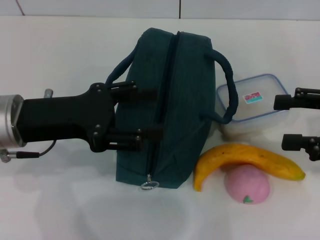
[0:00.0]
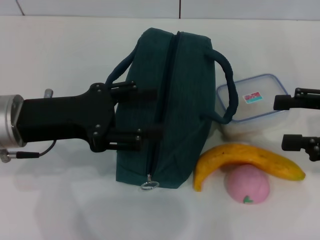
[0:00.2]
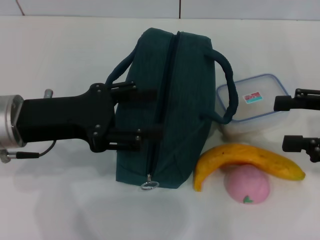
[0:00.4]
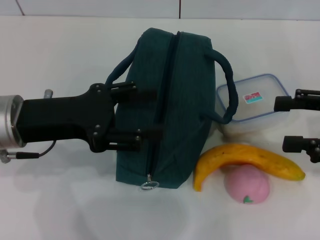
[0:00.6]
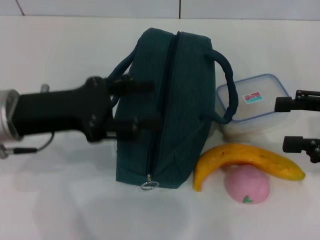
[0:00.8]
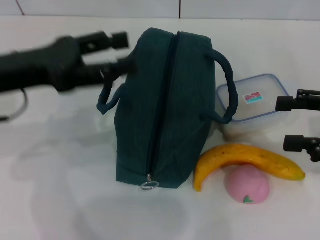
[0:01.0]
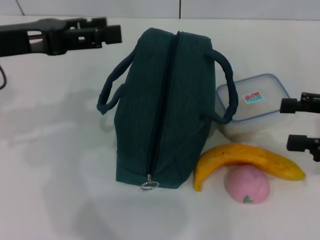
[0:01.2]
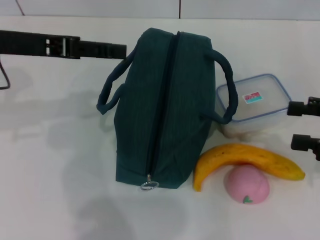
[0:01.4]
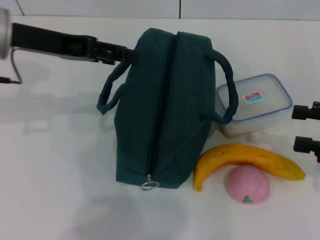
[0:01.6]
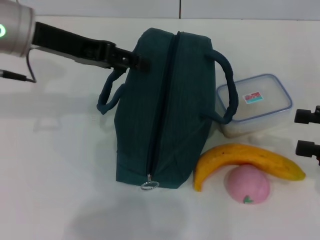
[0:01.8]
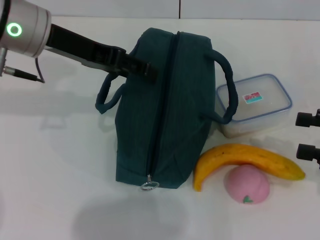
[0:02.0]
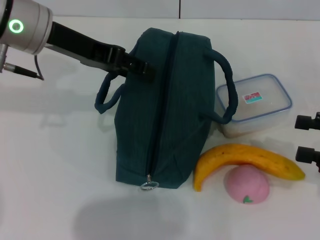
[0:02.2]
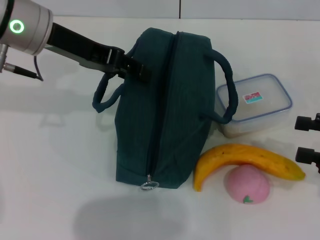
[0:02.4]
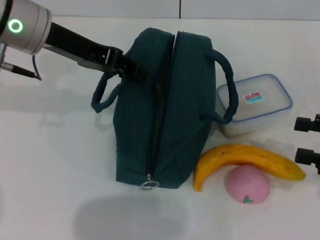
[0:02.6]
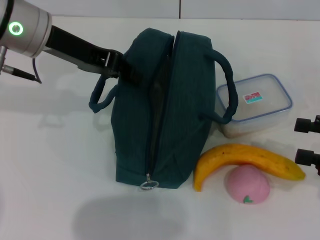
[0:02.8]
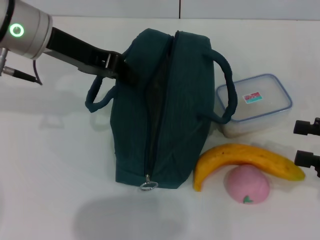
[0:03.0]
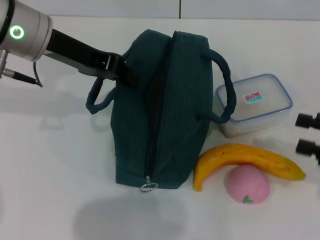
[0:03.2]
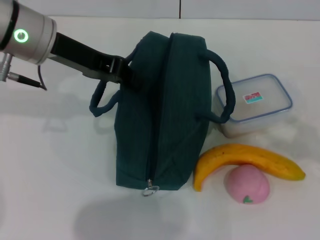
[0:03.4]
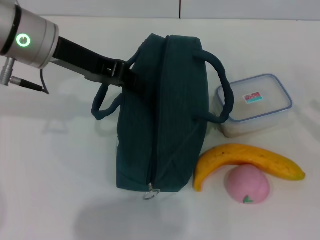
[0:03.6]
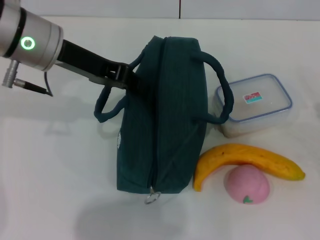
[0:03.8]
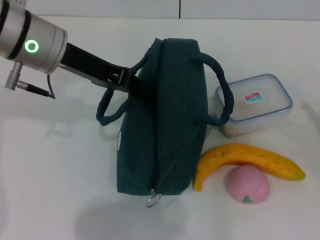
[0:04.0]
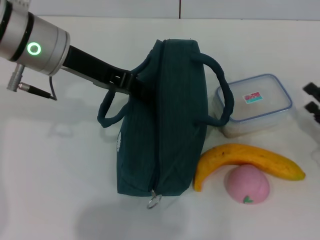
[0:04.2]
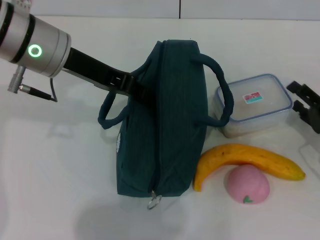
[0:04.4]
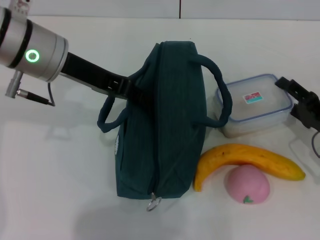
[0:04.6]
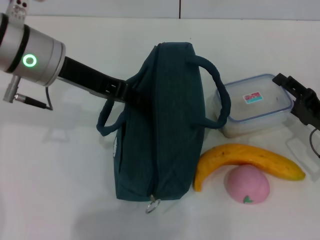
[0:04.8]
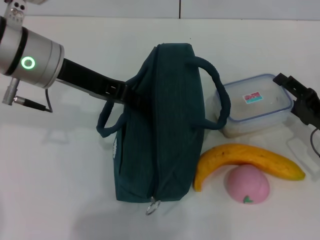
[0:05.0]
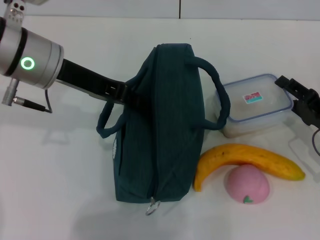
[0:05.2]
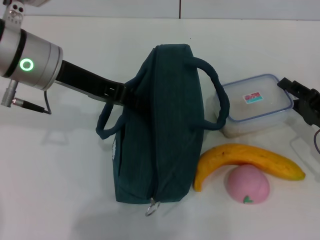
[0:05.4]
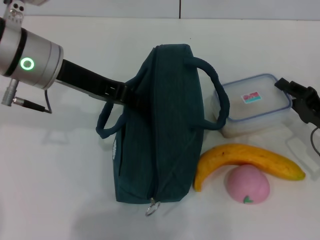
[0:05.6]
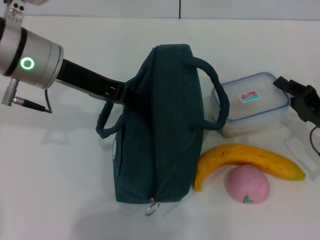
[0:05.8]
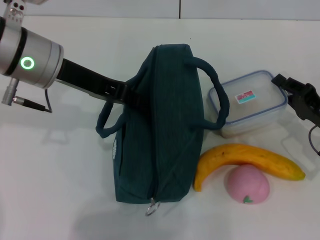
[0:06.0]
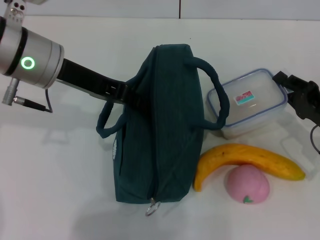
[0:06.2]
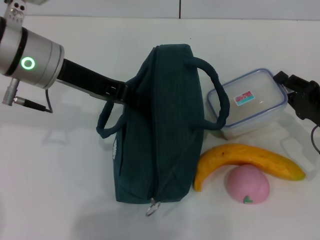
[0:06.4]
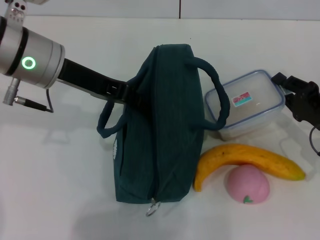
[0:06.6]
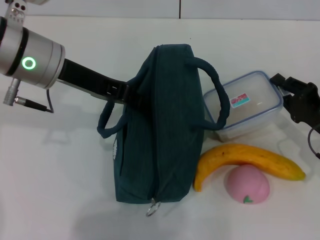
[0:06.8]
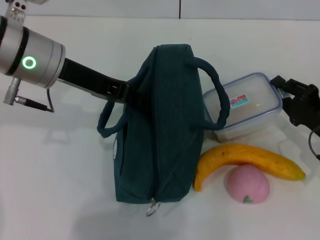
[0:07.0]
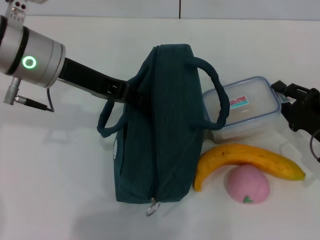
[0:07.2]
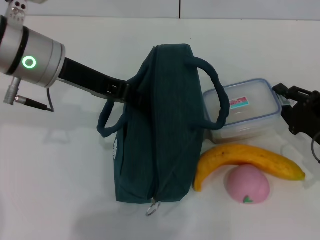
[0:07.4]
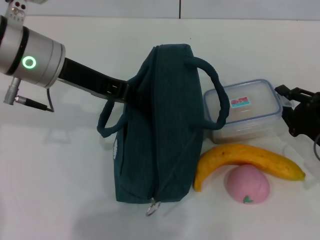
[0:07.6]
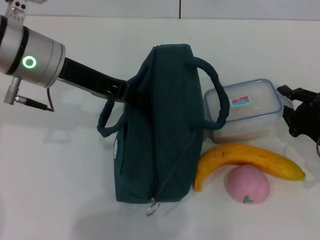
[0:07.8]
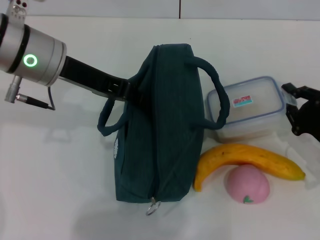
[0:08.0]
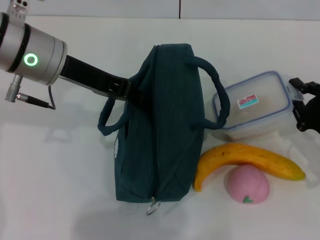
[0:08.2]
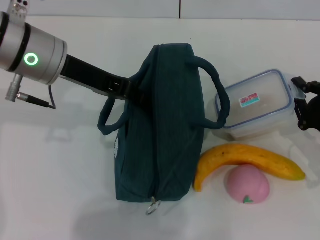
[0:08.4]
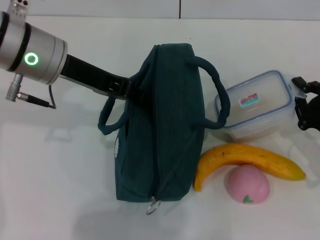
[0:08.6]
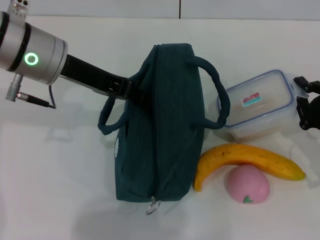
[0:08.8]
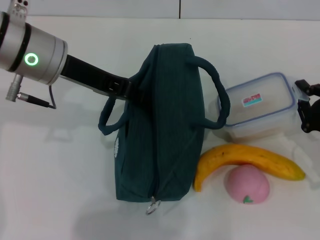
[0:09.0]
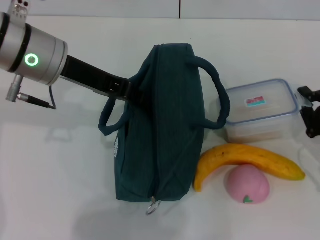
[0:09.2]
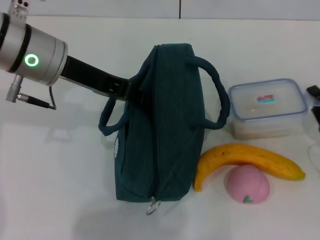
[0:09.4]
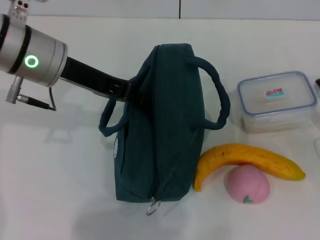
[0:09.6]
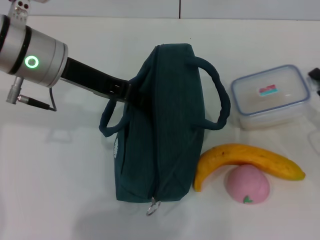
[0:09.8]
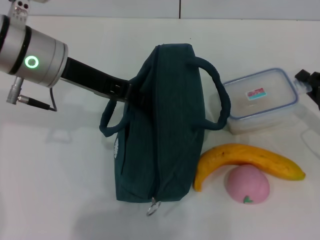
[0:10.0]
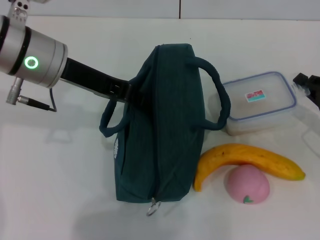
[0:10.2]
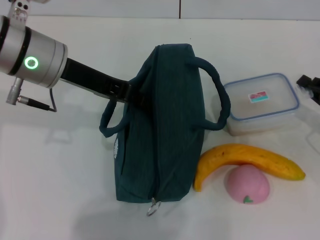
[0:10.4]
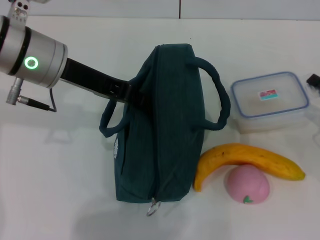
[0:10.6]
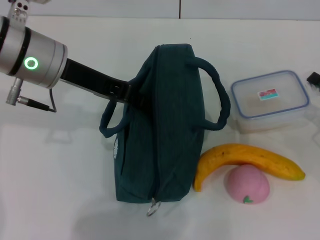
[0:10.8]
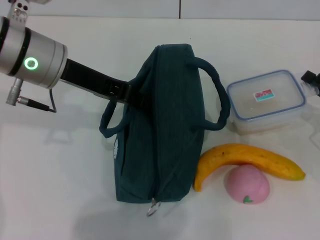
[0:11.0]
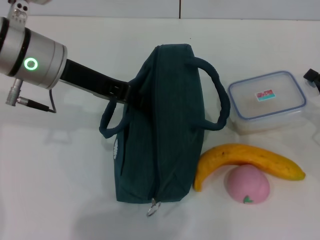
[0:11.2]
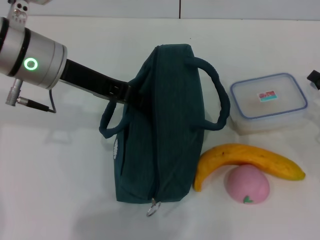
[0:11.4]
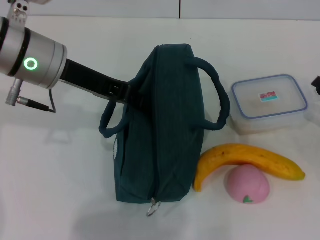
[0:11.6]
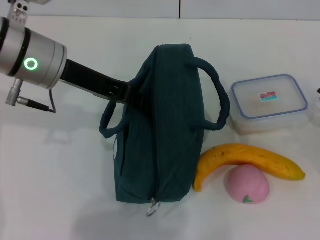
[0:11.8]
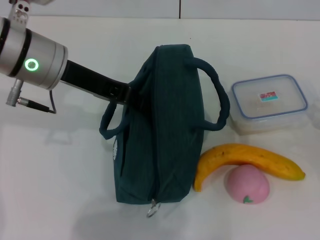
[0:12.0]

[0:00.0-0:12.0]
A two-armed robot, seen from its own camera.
Step, 0:00.0 to 0:03.4: Hold the lunch bag with your left hand.
0:00.0 to 0:01.6: The left gripper heads forward and upward, covering about 10 cm.
0:01.6 to 0:03.0: The left gripper closes its fingers.
0:03.0 to 0:04.4: The right gripper is displaced downward by roughly 10 cm.
0:04.4 to 0:06.0: The right gripper closes its fingers.
0:07.6 to 0:09.0: The grippers stay close to where they were, moving slightly.
0:09.0 to 0:10.4: The right gripper moves approximately 5 cm.
0:10.4 to 0:12.0: The grippers make only small movements.

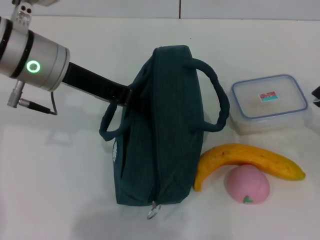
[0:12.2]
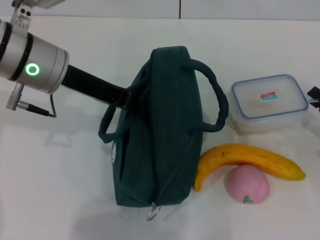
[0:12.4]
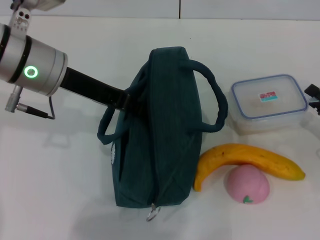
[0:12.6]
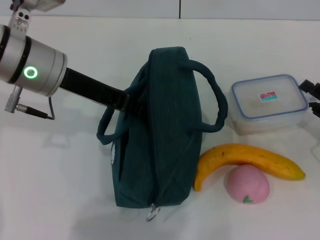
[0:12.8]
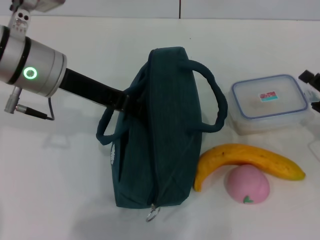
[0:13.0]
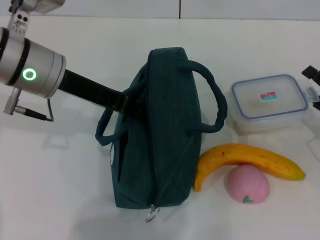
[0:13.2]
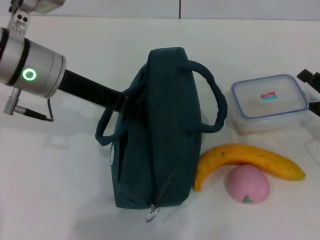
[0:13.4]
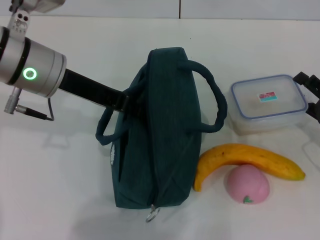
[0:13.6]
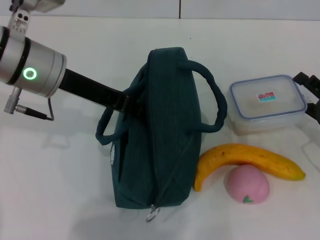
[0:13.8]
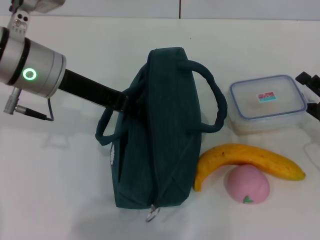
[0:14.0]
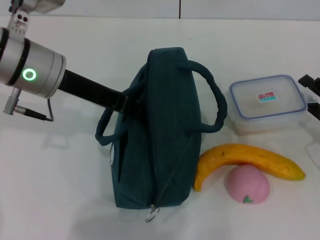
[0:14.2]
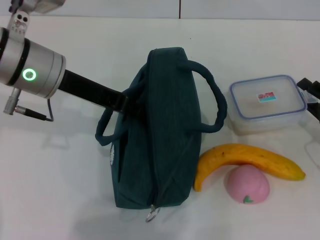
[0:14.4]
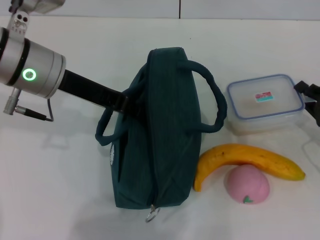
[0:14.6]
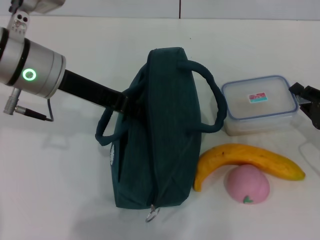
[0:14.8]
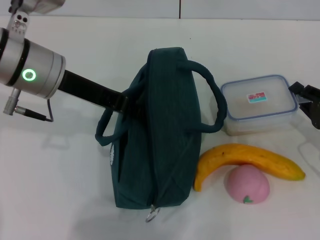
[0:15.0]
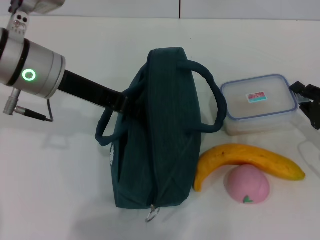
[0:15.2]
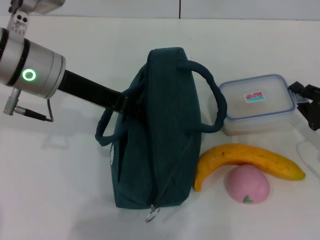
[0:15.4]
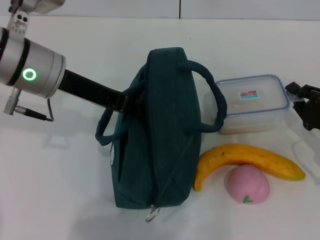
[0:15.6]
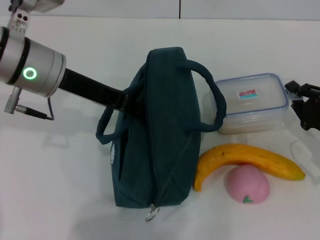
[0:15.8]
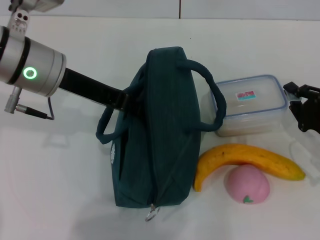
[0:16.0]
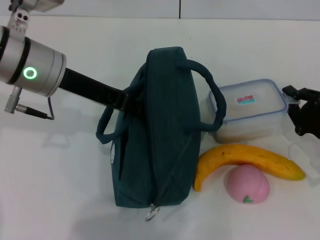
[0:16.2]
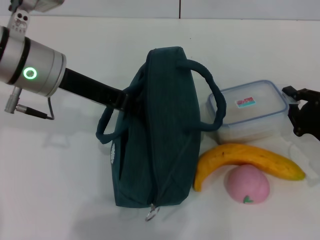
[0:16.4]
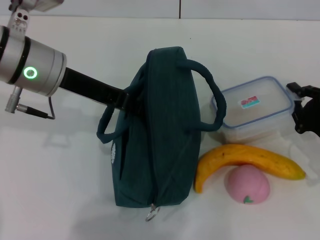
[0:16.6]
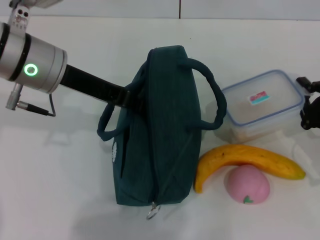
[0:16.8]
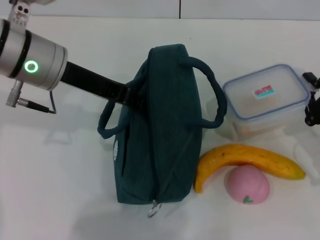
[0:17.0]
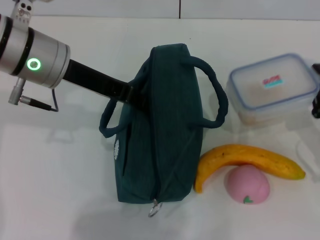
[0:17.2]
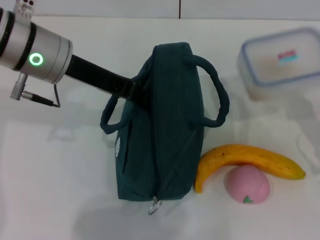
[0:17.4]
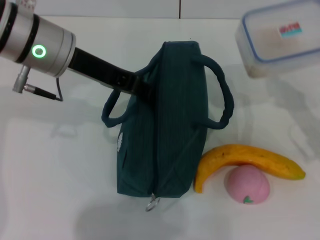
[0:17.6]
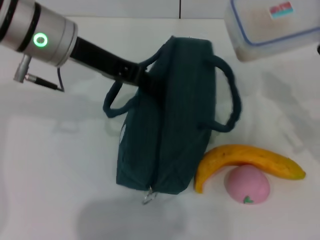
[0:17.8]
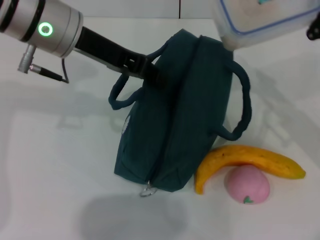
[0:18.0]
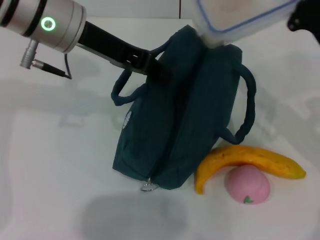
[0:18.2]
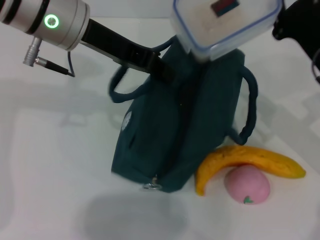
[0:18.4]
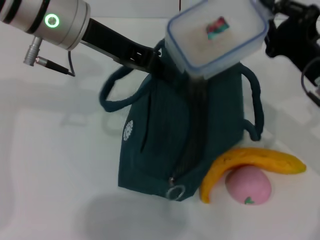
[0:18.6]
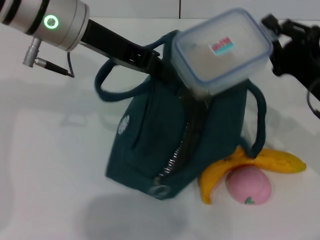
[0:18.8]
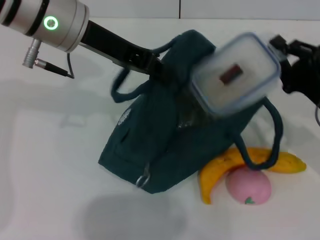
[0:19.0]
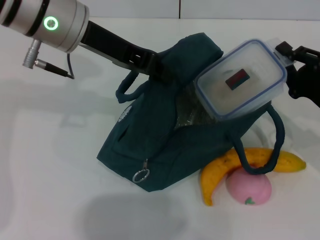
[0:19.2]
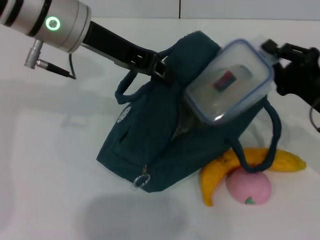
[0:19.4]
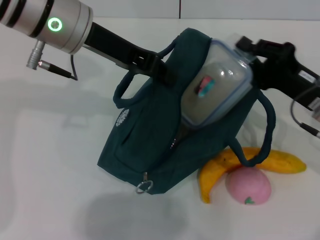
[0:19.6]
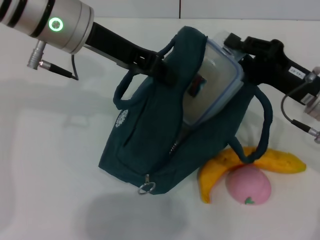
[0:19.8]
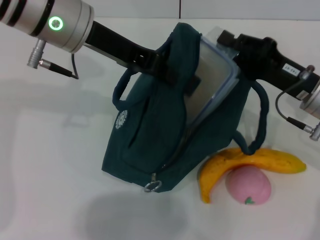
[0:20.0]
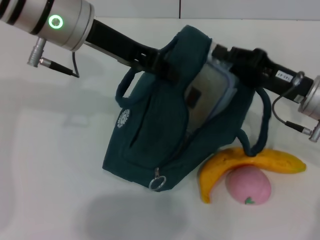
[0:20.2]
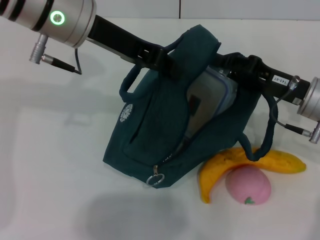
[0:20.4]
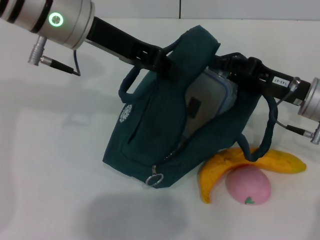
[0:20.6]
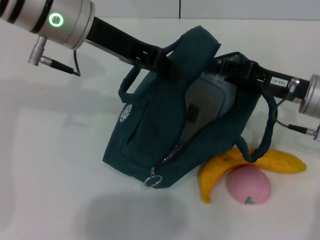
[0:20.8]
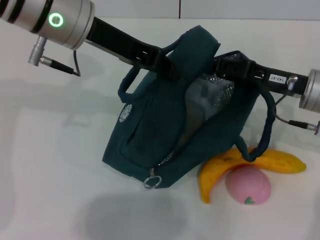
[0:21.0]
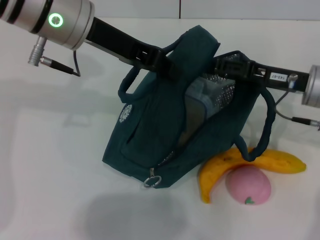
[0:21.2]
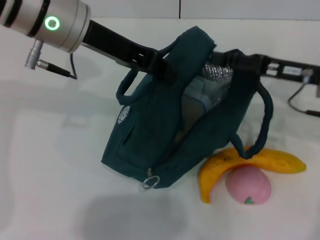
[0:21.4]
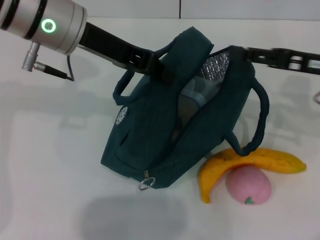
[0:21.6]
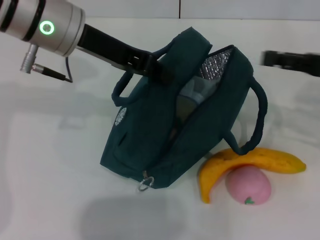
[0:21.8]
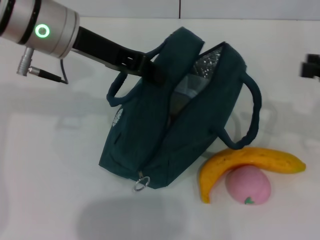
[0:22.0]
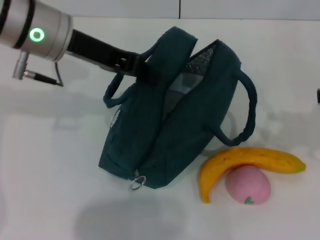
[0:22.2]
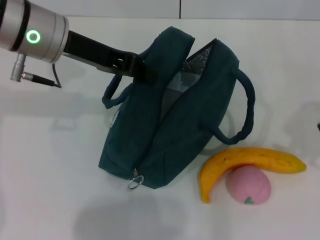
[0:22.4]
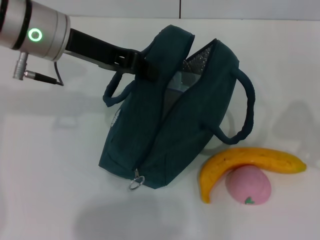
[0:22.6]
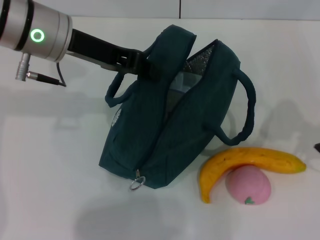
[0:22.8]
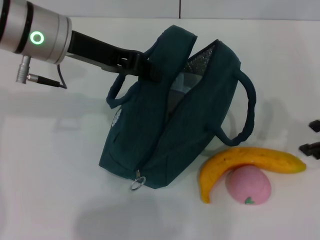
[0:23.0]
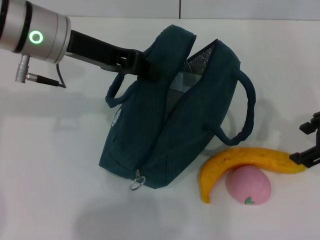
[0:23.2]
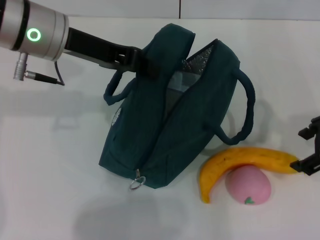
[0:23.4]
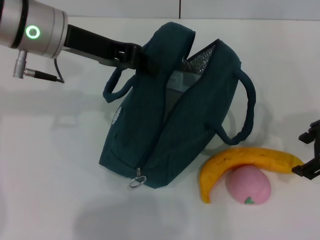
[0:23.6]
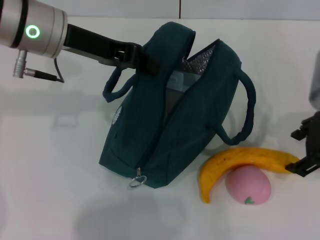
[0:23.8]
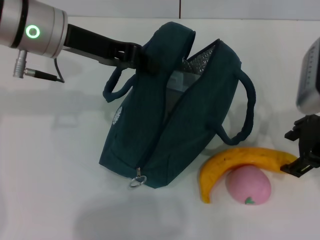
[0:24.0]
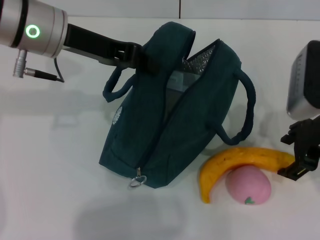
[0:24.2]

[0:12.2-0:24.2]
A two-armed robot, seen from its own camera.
Step, 0:12.2 to 0:15.0: Pick up the lunch box with your right hand.
Step, 0:15.2 to 0:21.4: Place the lunch box into the lunch bag with your right hand.
0:12.2 to 0:13.8: The right gripper opens.
0:13.8 to 0:15.2: The right gripper closes.
0:16.6 to 0:18.2: The right gripper is displaced upward and forward by about 10 cm. Meanwhile the left gripper ends up some 5 cm from where it was.
0:21.2 to 0:22.6: The right gripper goes roughly 15 cm upward, to the right and backward.
0:22.6 to 0:24.2: The right gripper goes about 10 cm to the left and downward.
